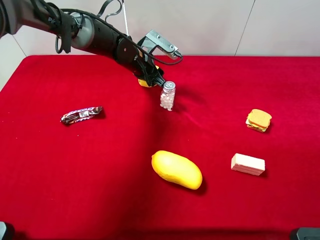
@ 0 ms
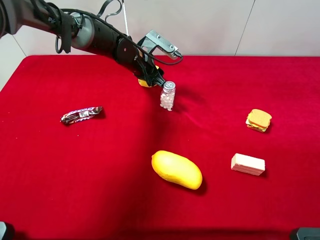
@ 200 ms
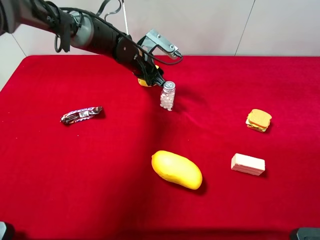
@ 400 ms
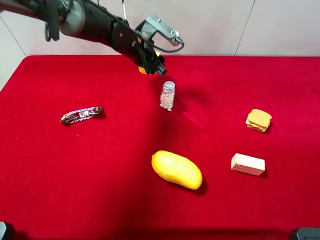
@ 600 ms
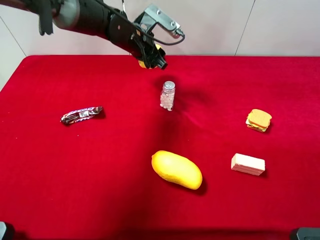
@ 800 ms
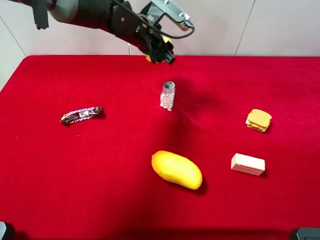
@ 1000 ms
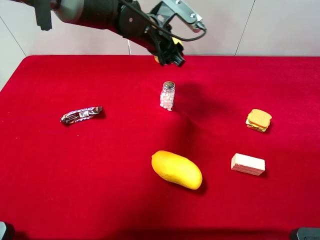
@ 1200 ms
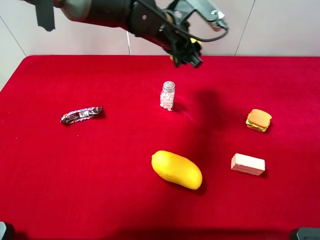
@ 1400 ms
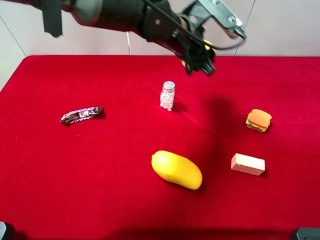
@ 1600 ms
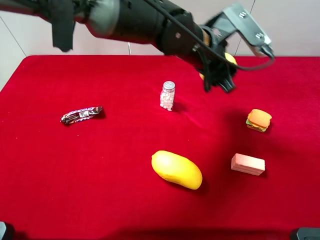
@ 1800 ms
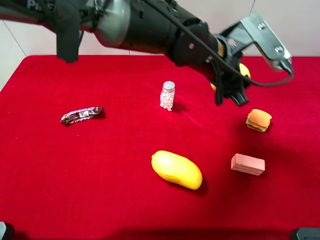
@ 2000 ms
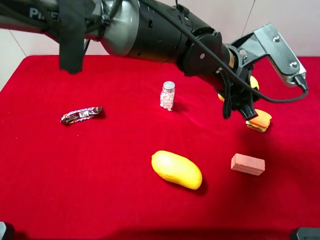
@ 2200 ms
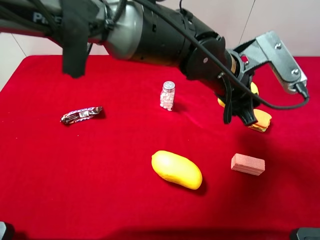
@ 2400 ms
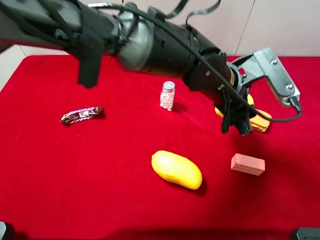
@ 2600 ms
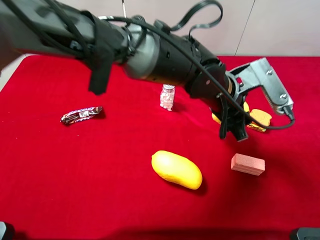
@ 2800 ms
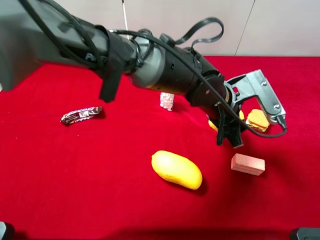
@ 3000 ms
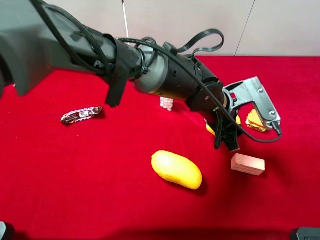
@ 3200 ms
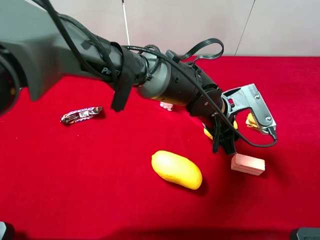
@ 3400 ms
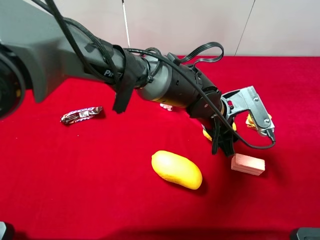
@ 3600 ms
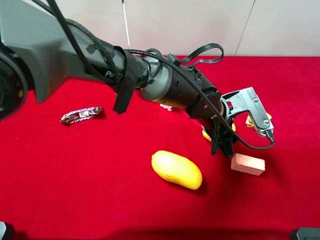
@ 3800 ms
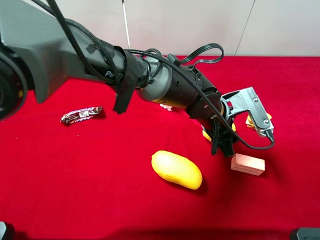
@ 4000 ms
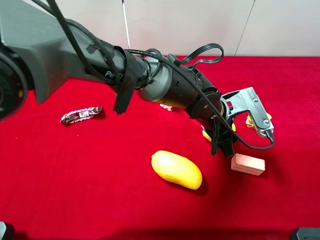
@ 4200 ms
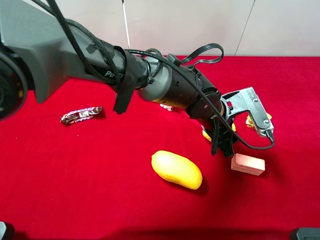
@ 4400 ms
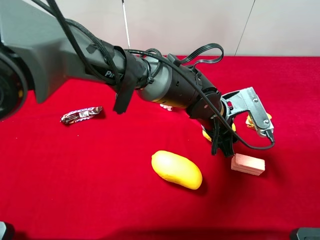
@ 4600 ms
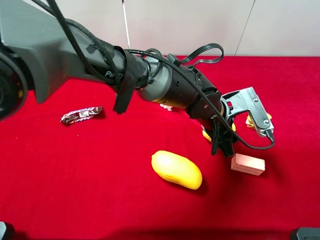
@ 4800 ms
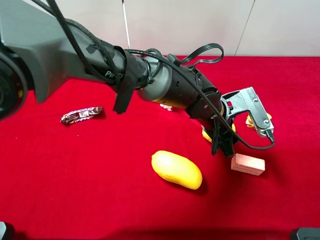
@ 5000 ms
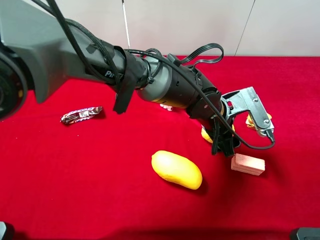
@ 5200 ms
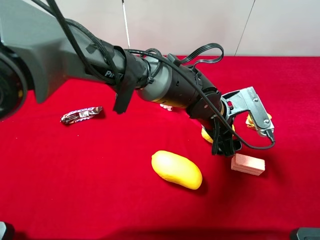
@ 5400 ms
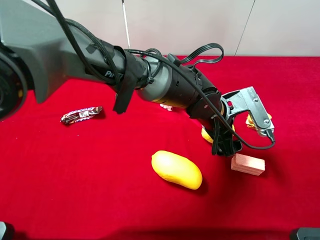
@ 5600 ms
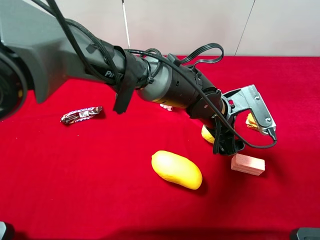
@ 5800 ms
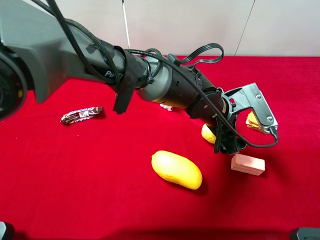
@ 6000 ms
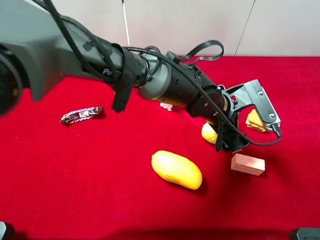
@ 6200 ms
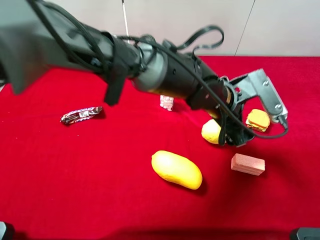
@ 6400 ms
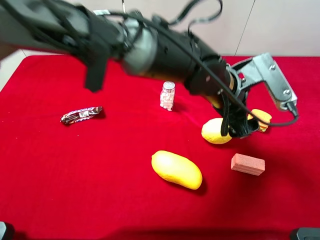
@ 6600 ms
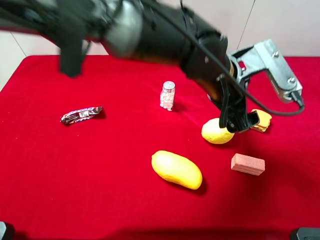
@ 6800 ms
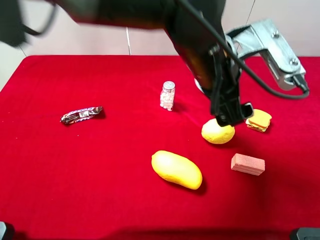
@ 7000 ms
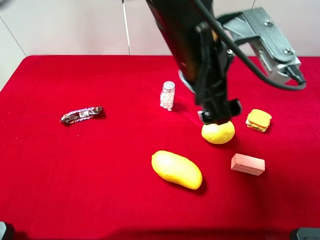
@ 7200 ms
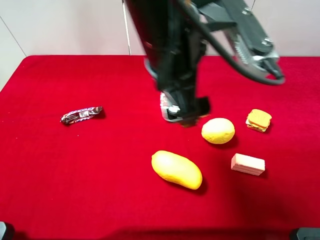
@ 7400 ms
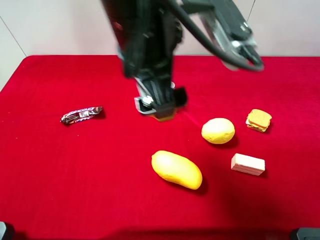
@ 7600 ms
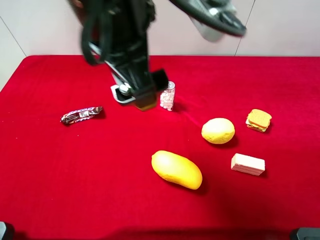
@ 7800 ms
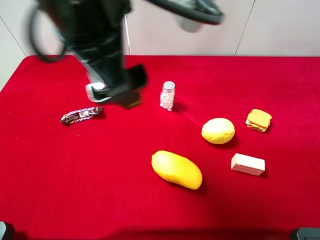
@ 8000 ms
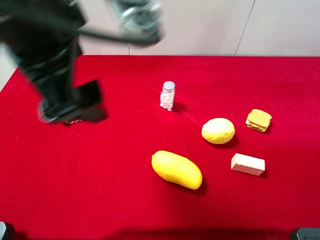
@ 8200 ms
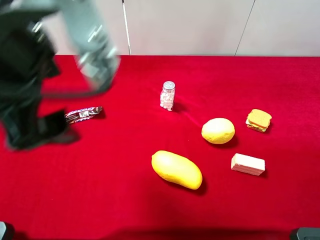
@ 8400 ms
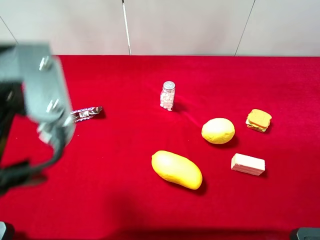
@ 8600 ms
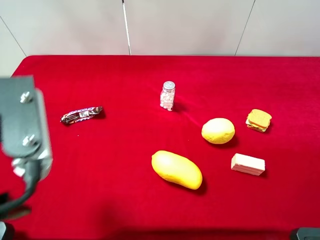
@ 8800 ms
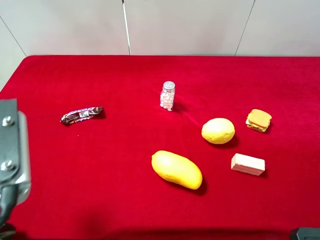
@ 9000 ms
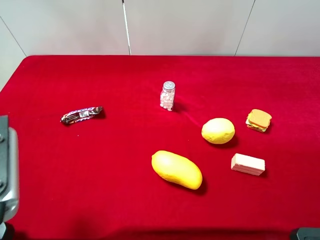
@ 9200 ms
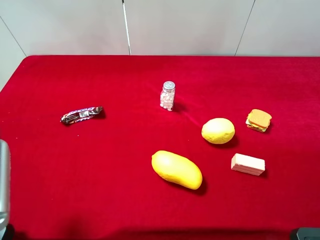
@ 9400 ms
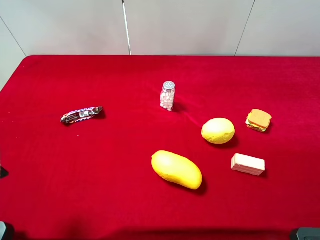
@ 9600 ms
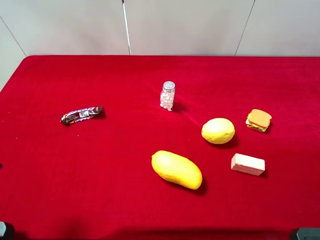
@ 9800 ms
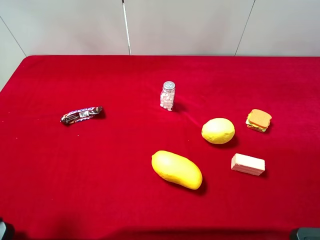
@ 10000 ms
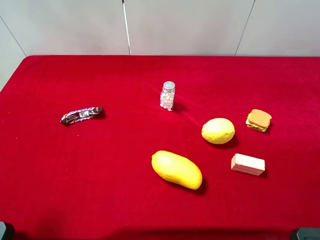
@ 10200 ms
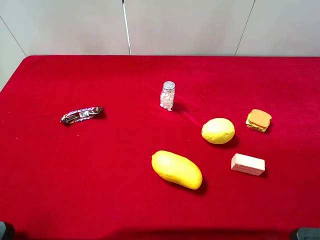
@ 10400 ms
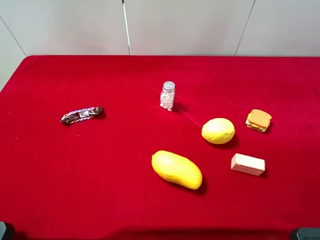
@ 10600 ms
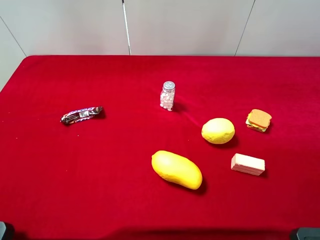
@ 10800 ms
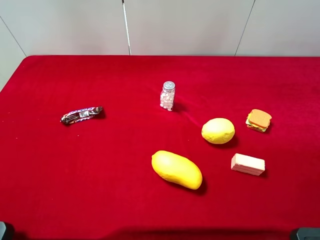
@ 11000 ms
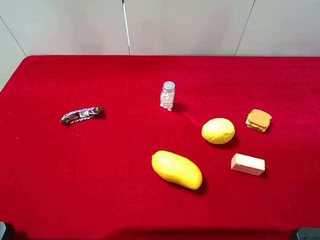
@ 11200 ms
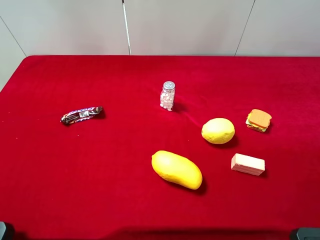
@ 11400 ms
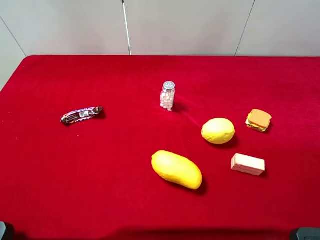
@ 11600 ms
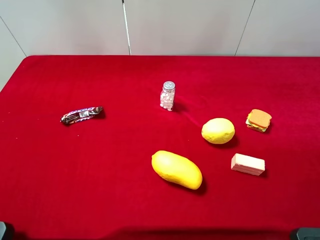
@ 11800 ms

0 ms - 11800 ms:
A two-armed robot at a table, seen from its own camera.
Task of the whole recording: the gripper move the object.
Step, 0 ms - 6800 ms: Place the mango on the table with the left gripper.
0 ms - 1400 ms: The left gripper goes roughly 10 cm upward and to the right.
1400 ms - 3000 ms: The left gripper moves backward, to the right and downward, approximately 20 cm.
6000 ms - 7400 ms: The left gripper shifts roughly 20 cm upward and to the left.
7400 ms - 8800 ms: The left gripper travels to the left and backward by approximately 25 cm.
8800 ms - 10400 ms: The left gripper shifts some 15 cm to the left and backward.

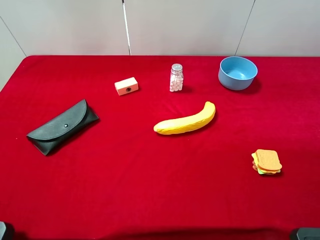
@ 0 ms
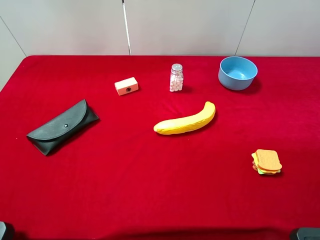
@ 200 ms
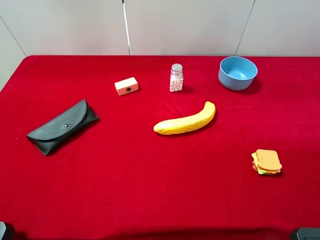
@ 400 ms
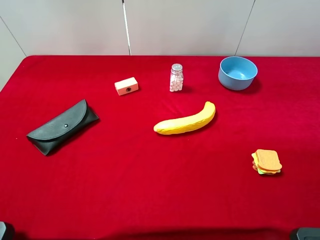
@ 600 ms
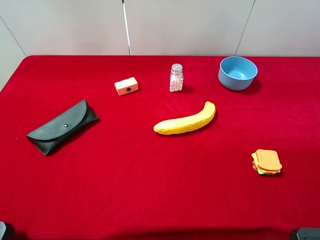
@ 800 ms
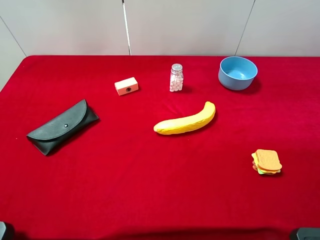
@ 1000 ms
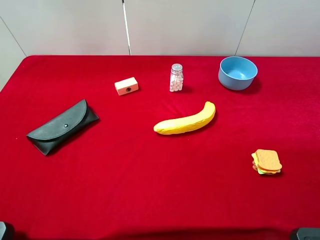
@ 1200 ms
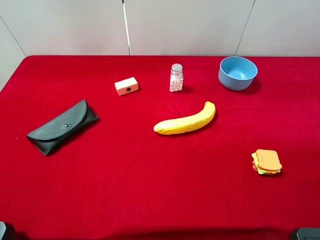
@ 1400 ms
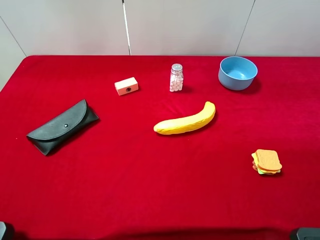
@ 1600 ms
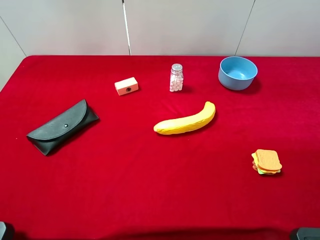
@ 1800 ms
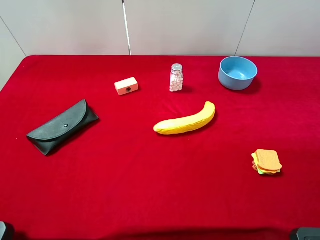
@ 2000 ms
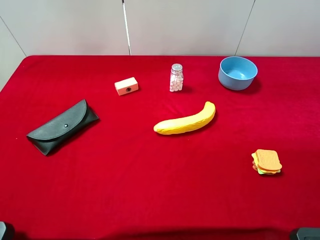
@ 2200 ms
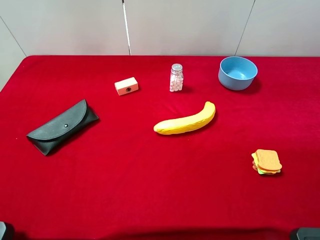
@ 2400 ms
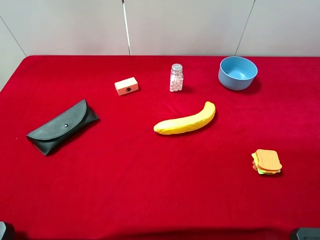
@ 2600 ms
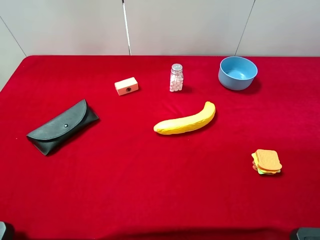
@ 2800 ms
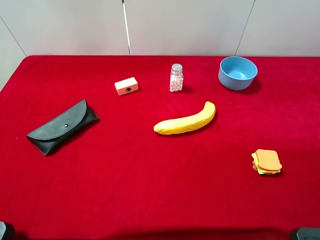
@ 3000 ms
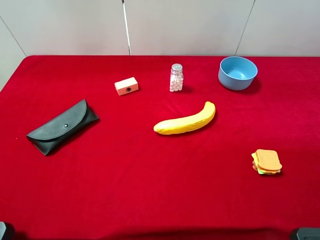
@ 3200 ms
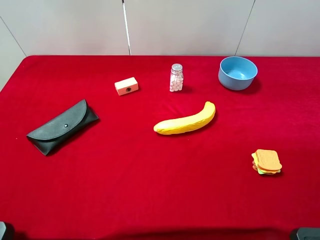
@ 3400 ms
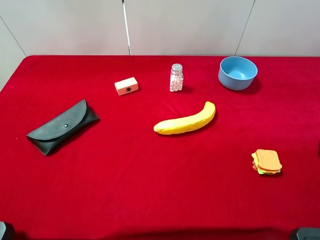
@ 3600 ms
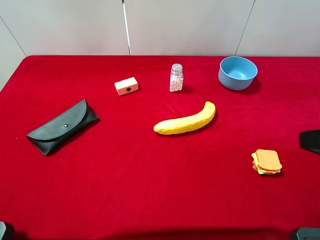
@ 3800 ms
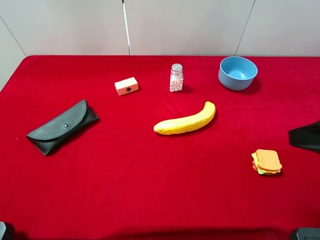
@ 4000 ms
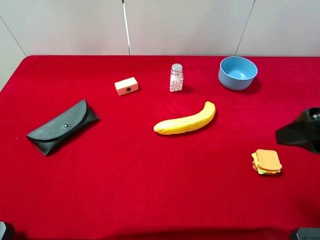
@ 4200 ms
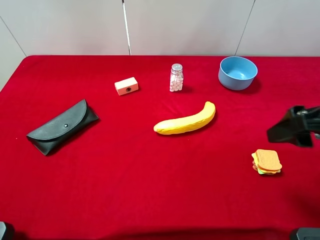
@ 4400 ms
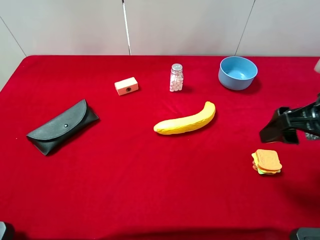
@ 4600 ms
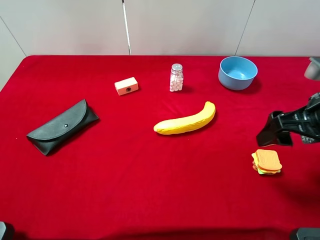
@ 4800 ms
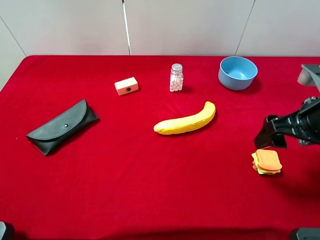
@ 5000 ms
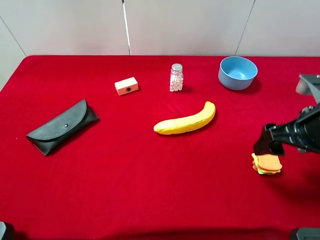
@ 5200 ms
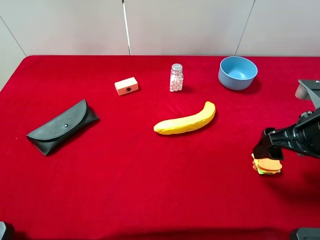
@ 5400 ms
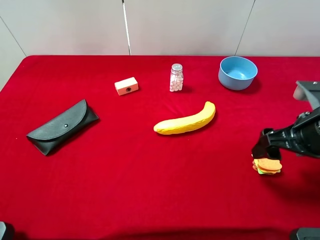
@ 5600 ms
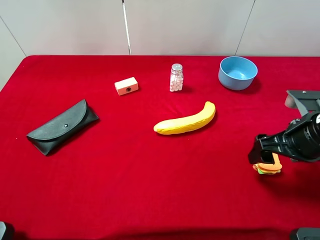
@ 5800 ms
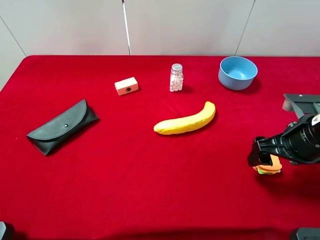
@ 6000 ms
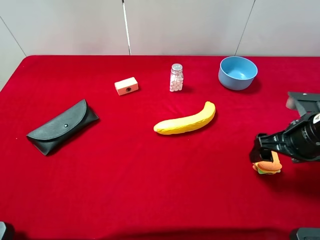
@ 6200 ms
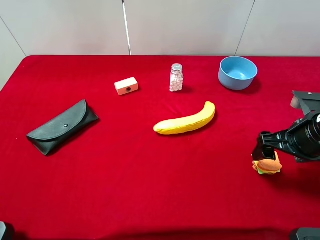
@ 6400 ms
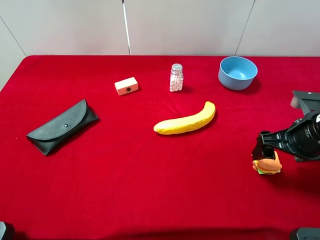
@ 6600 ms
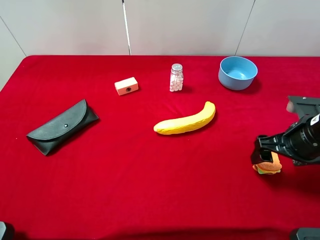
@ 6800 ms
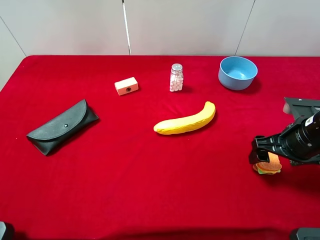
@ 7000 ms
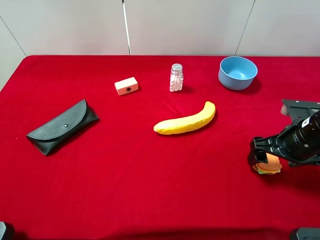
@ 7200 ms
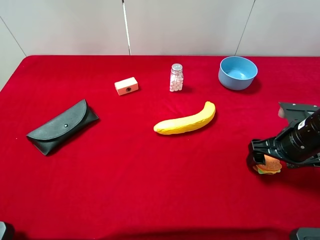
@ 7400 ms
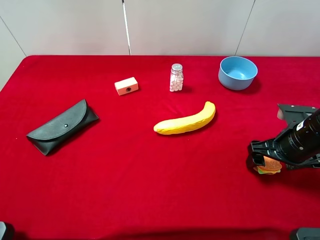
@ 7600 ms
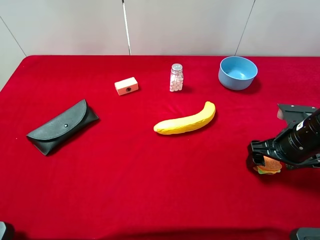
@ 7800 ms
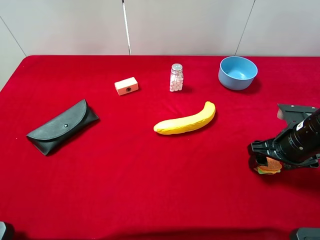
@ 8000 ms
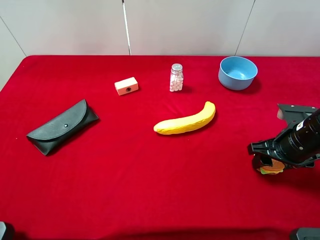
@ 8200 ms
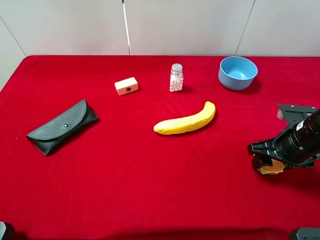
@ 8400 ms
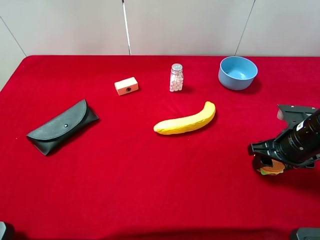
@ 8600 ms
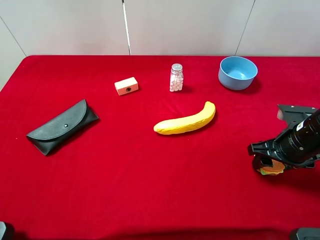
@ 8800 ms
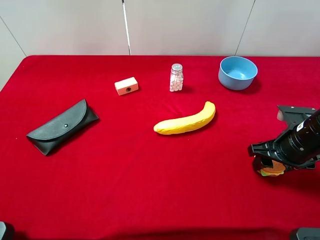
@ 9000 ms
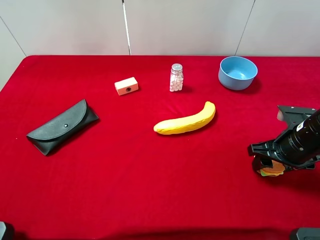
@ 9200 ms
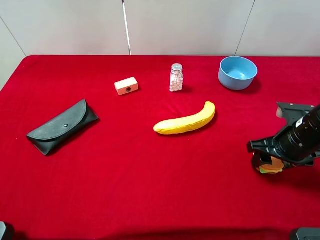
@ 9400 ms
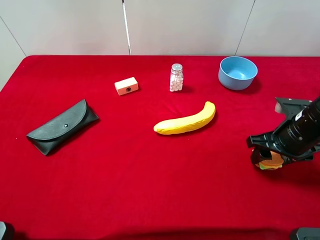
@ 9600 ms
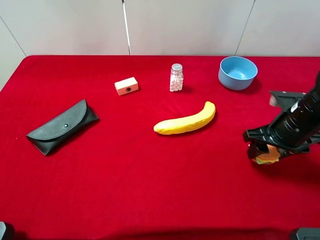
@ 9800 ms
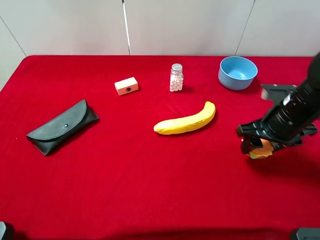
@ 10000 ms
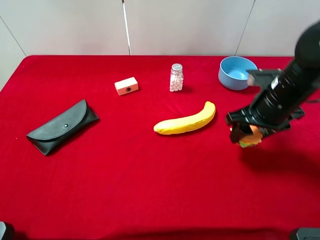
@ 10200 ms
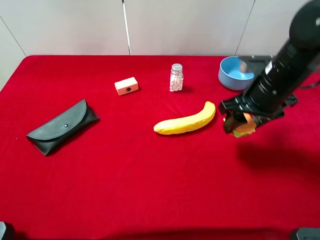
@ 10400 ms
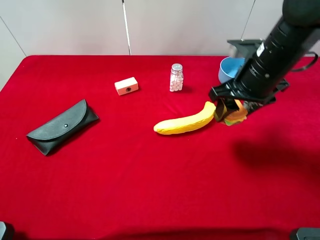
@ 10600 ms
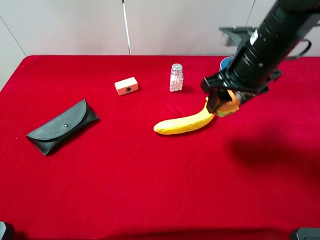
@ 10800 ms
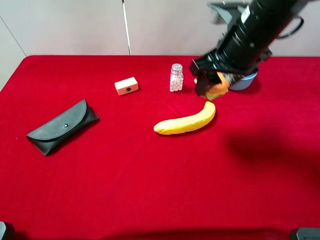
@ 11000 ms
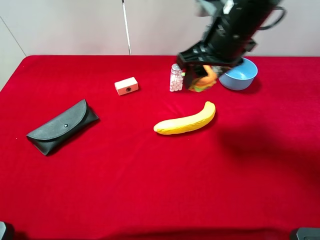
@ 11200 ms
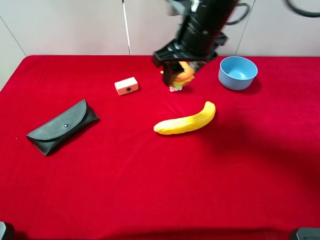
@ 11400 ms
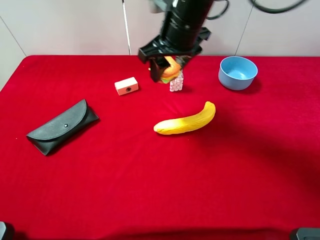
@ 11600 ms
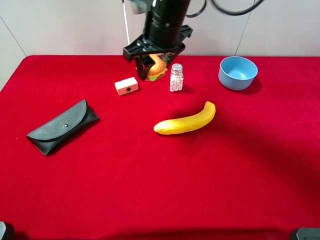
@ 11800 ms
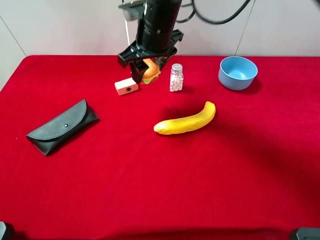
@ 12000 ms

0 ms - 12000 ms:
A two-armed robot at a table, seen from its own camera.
Task of the whole recording: the gripper move the object.
Step, 0 ms - 9200 ms: Grasp the sandwich with the right gripper.
0 ms - 3000 ms: The two grippers keep their place.
3000 ms - 4400 ms: The right gripper moves forward, some 15 cm.
4400 ms - 6000 ms: The right gripper is displaced downward by about 10 cm.
6000 ms - 7600 ms: The grippers stay close to where they were, moving slightly.
7600 ms - 9000 ms: The right gripper closes up.
9000 ms - 10400 ms: The right gripper travels to the left, upward and forward by about 15 cm.
10400 ms - 12000 ms: The right gripper is displaced to the left and forward by roughly 25 cm.
